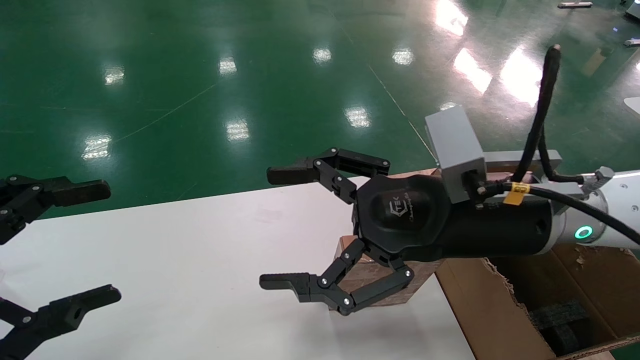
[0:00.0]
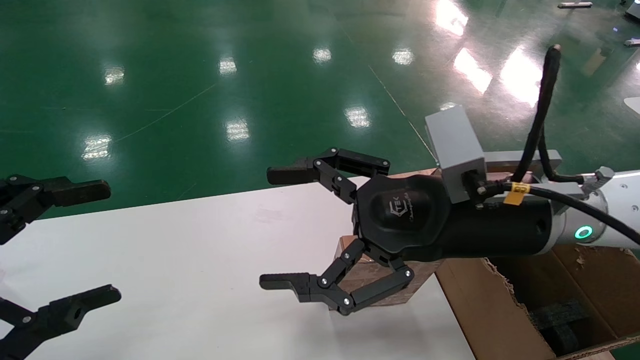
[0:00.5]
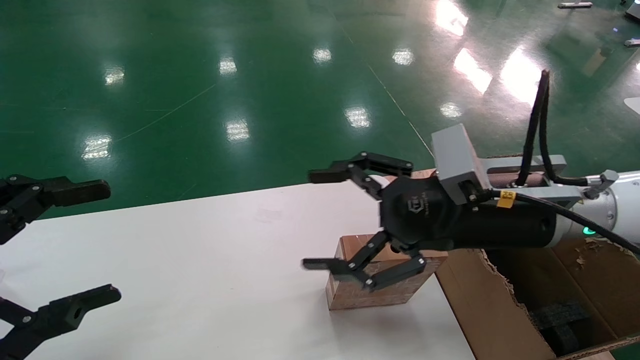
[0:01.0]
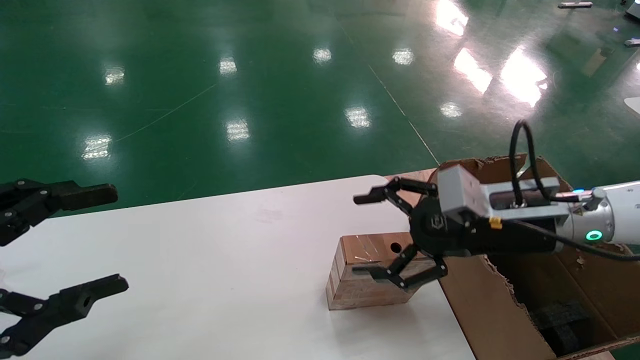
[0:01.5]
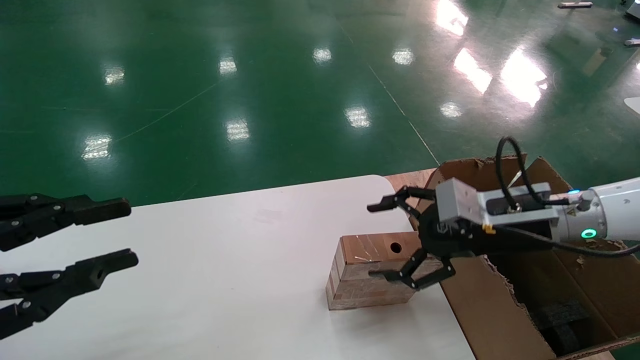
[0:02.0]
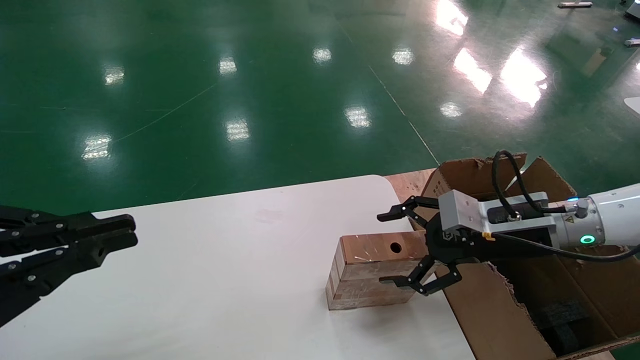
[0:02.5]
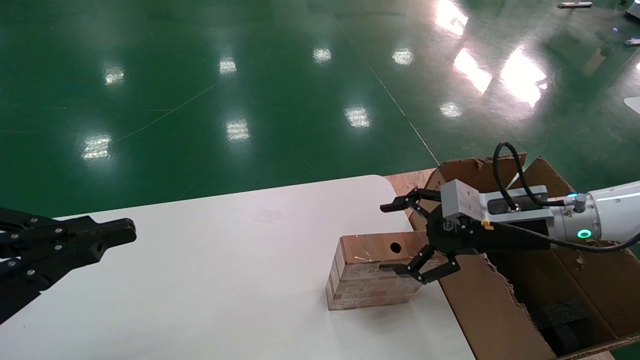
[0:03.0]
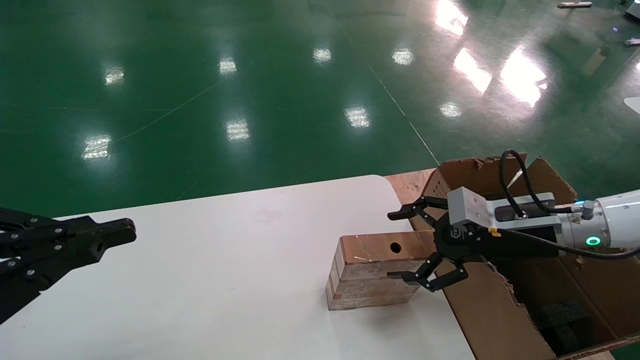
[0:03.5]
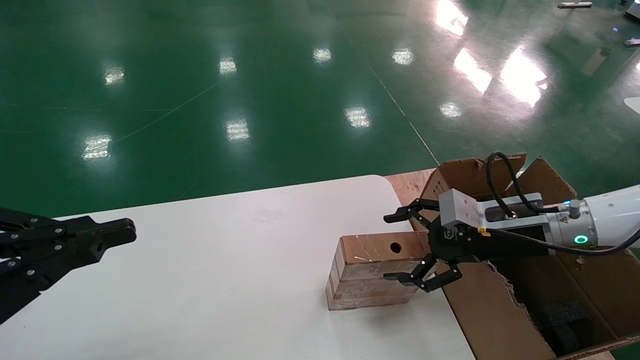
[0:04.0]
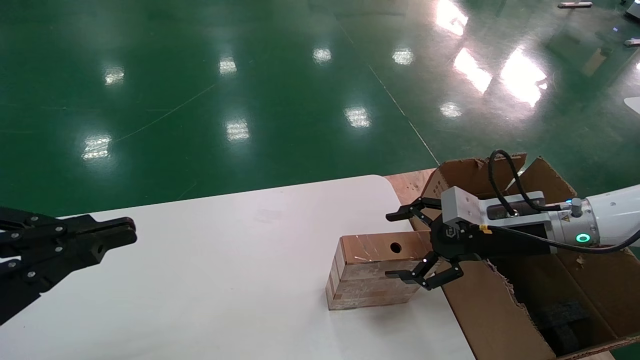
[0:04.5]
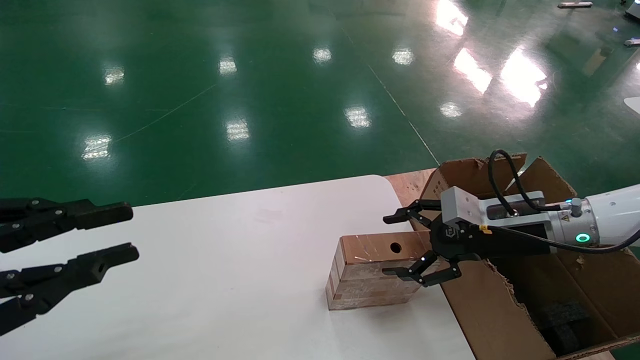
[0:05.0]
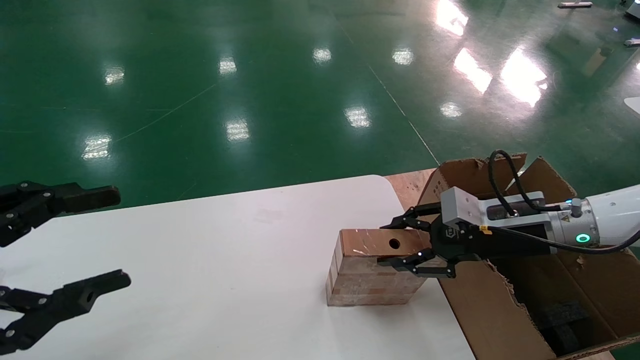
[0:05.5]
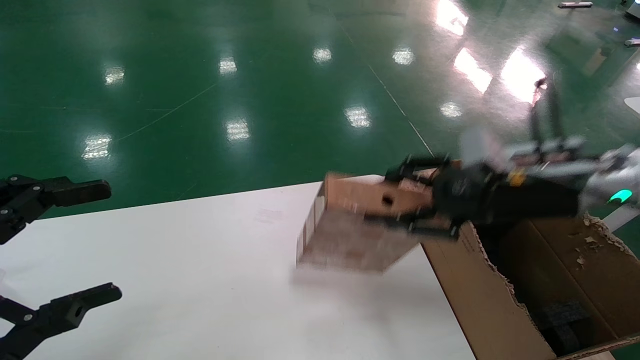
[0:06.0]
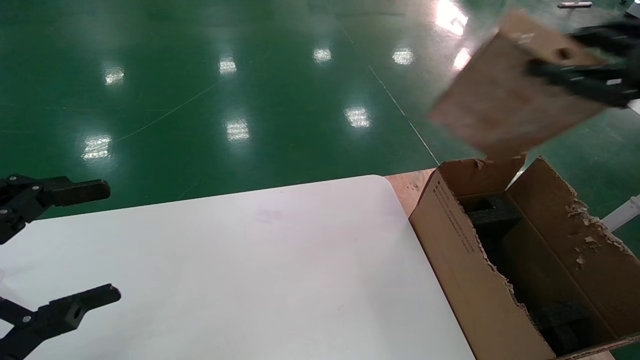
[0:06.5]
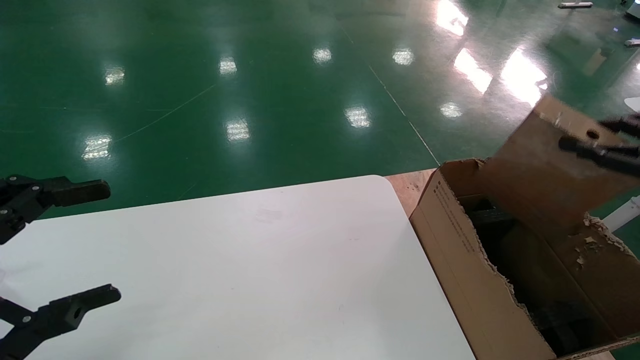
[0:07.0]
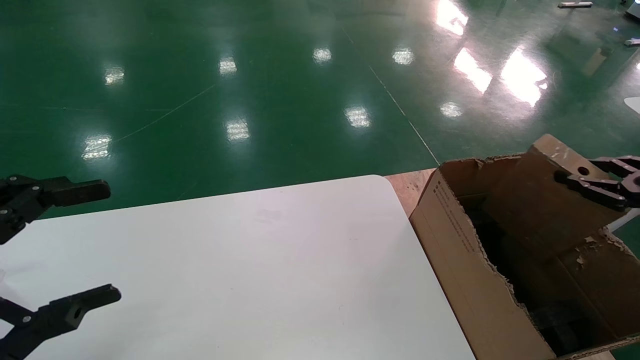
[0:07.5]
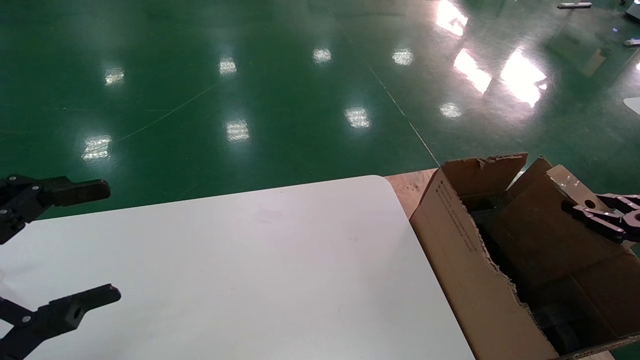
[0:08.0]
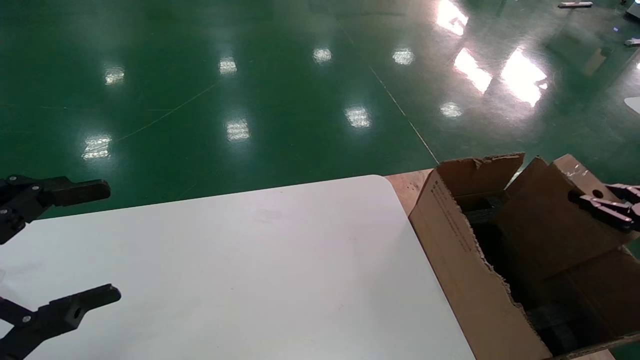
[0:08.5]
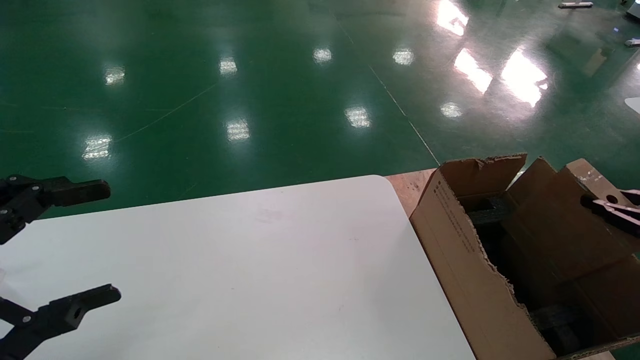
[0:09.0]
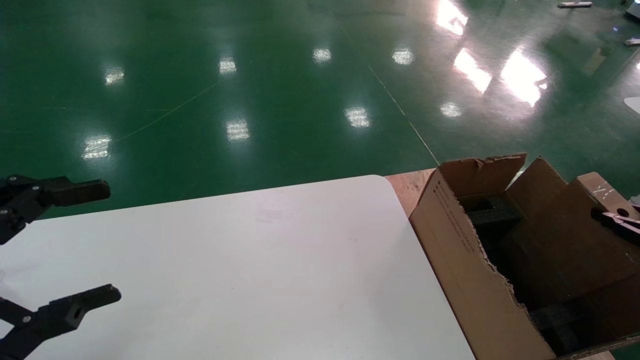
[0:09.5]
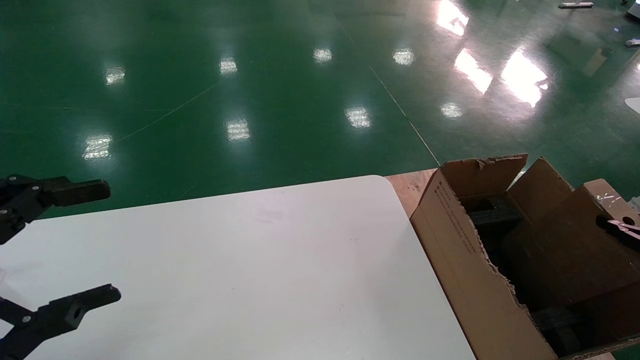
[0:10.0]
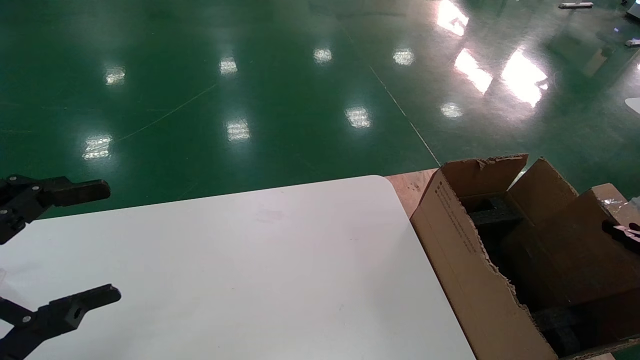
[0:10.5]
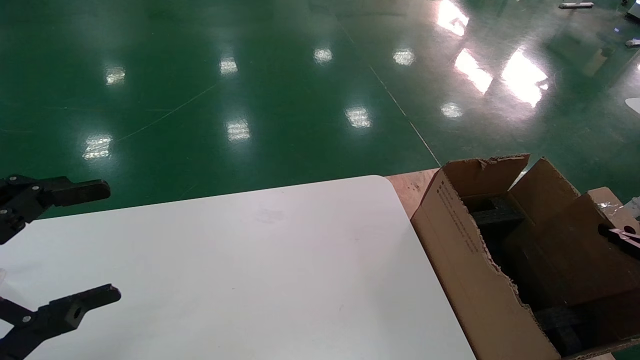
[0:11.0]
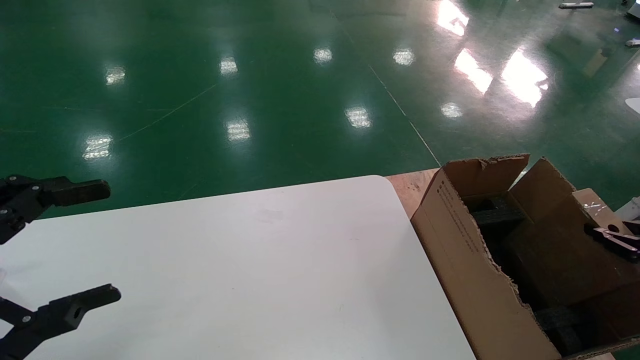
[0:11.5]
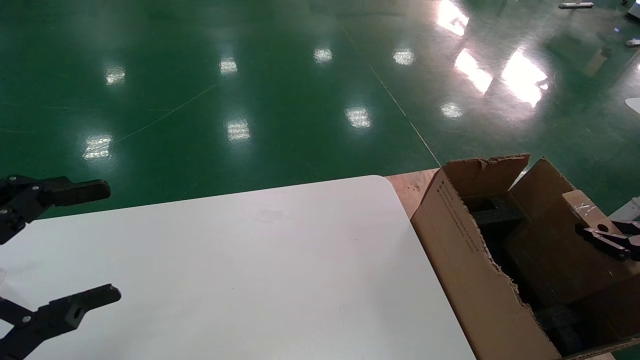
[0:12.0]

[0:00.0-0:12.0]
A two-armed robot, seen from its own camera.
Task of the whole recording: put the box on the table into the big box.
Step, 0:01.5 to 0:06.0: Pick up the mouse and the power cord paper box.
0:00.0 to 0:02.0: The left gripper closes, while the right gripper heads to the right, downward and forward, covering roughly 15 cm.
0:02.0 to 0:04.0: The left gripper closes up.
0:04.0 to 0:06.0: The right gripper is displaced upward by approximately 10 cm, and closes up. Meanwhile the left gripper opens.
0:06.0 to 0:08.0: The right gripper shifts about 25 cm to the right and downward.
0:08.0 to 0:10.0: The right gripper shifts roughly 5 cm backward.
0:10.0 to 0:12.0: The grippers move only a little.

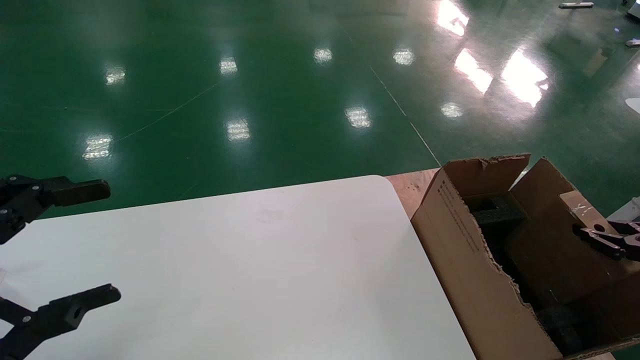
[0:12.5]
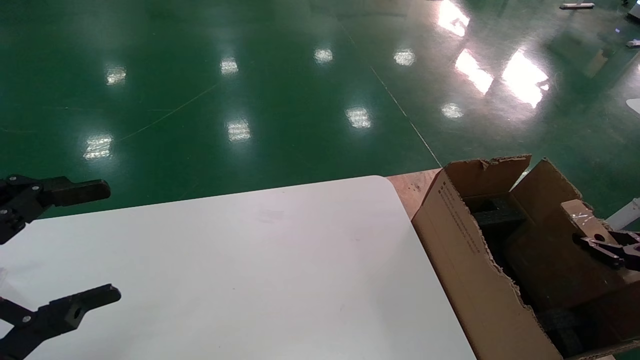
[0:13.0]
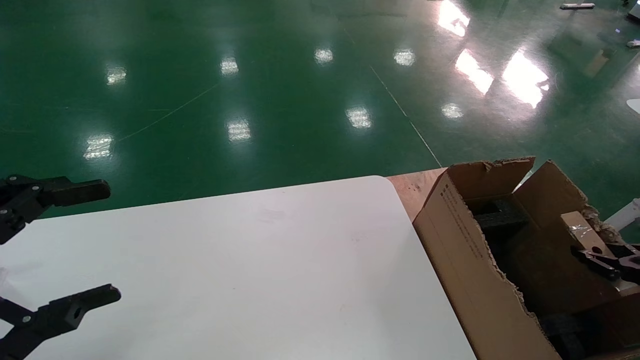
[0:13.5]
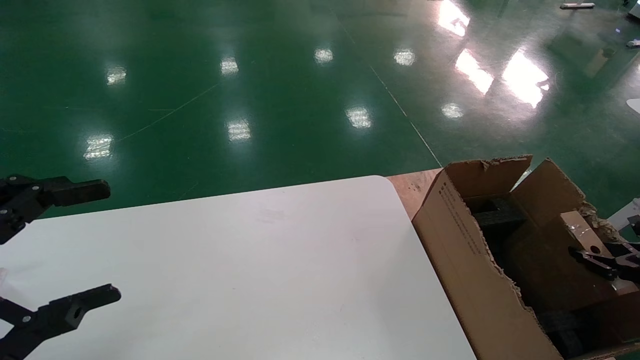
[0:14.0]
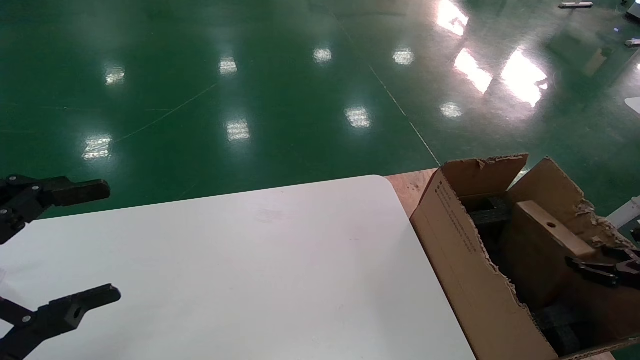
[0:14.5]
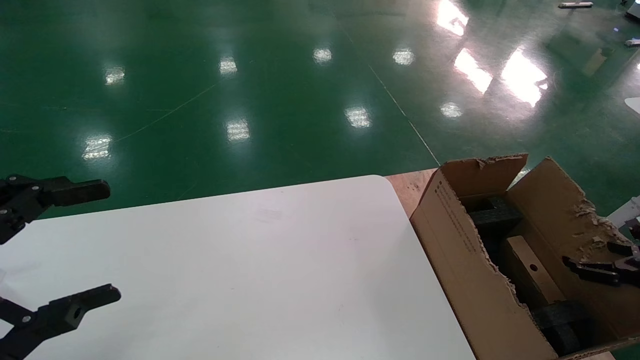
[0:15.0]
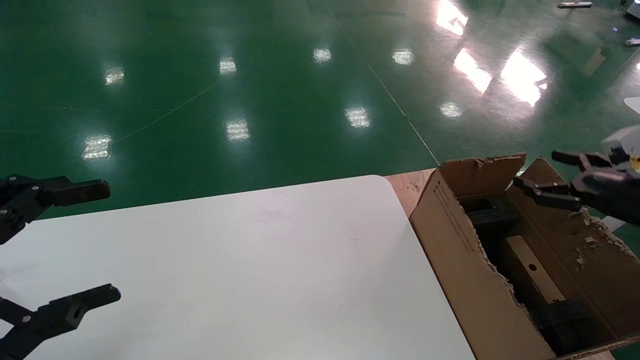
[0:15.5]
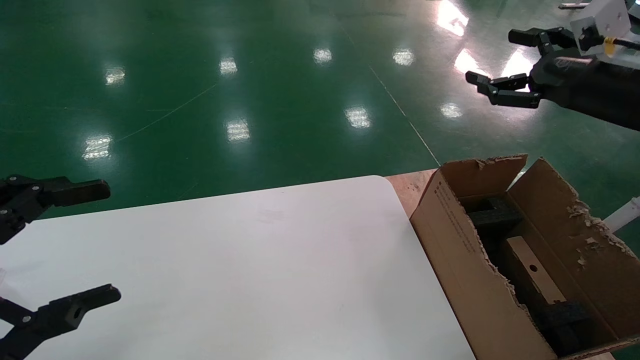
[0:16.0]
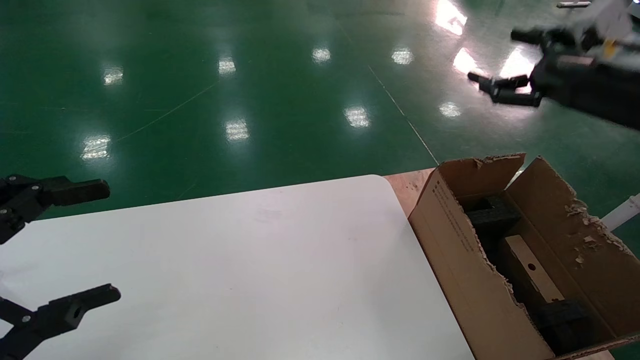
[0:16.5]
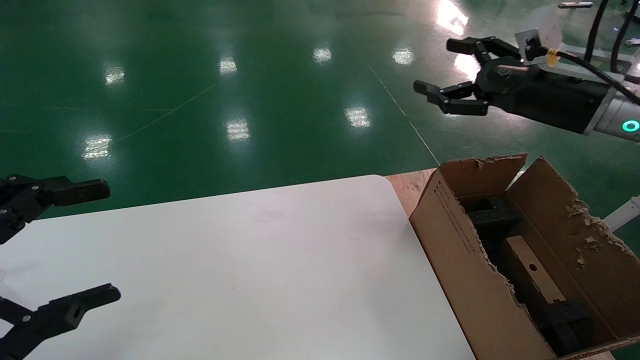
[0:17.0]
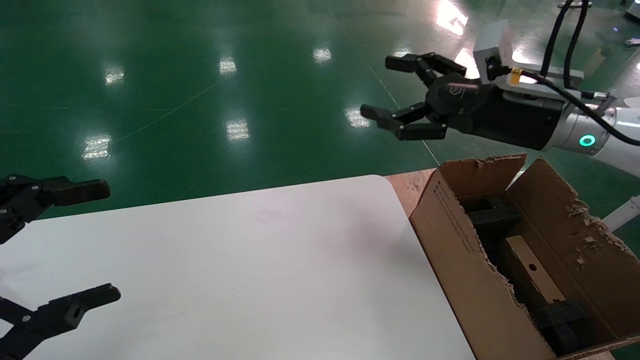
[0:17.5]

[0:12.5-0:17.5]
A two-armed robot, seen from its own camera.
Task of the whole recording: put the box on the table into the big box.
Step, 0:12.5 to 0:14.5: Place the mouse and the power cord paper box into the container.
0:12.5 to 0:15.0: The right gripper opens its fingers.
0:15.0 to 0:17.5: The right gripper moves to the left, upward and forward, roughly 35 cm.
